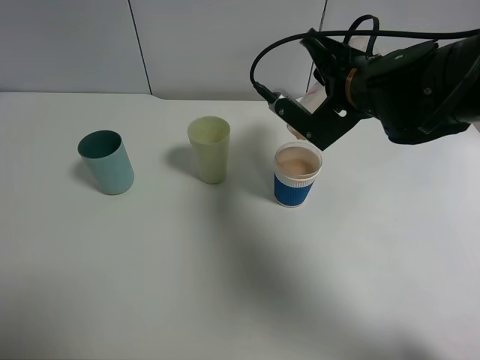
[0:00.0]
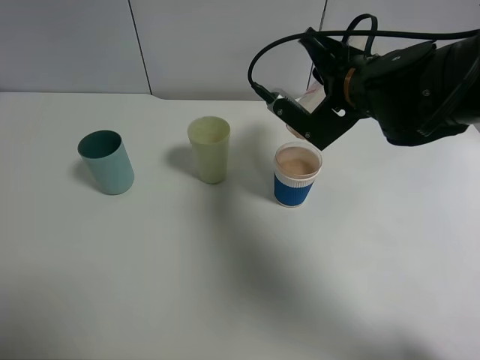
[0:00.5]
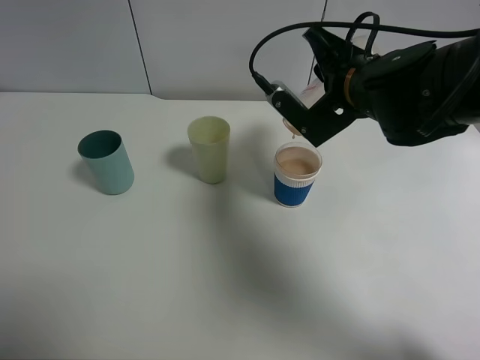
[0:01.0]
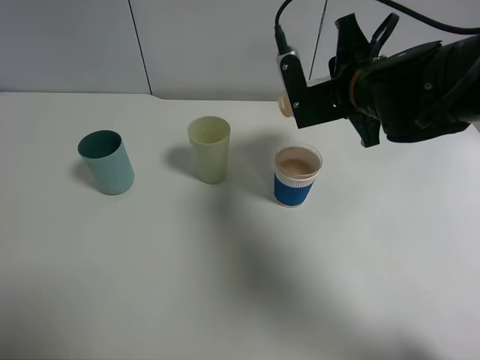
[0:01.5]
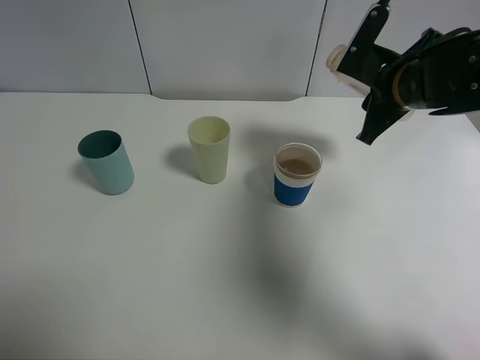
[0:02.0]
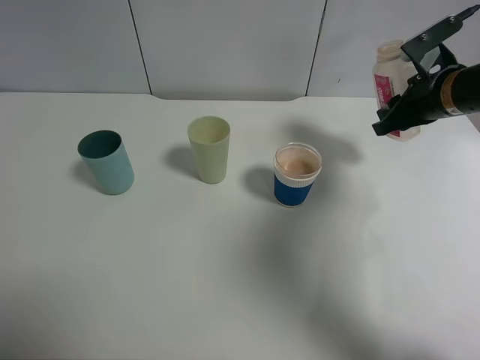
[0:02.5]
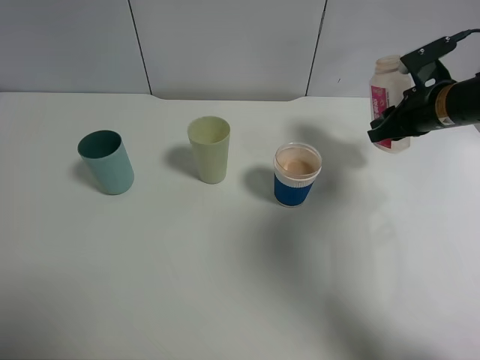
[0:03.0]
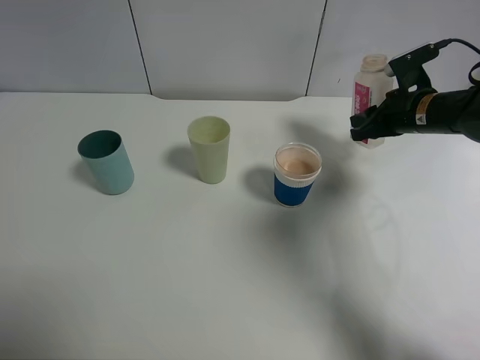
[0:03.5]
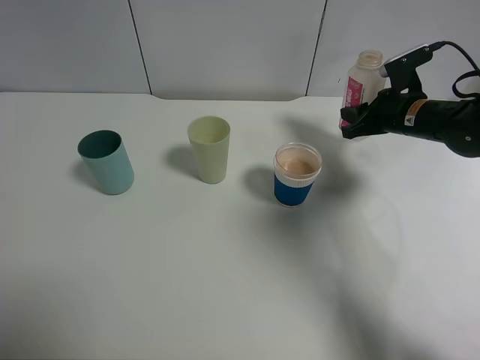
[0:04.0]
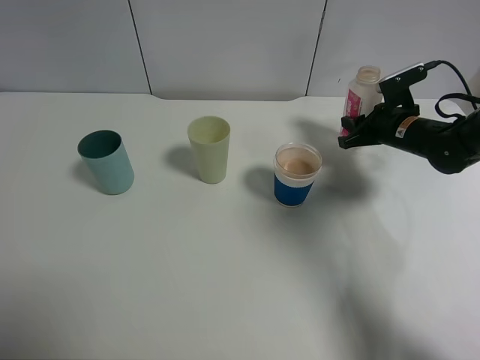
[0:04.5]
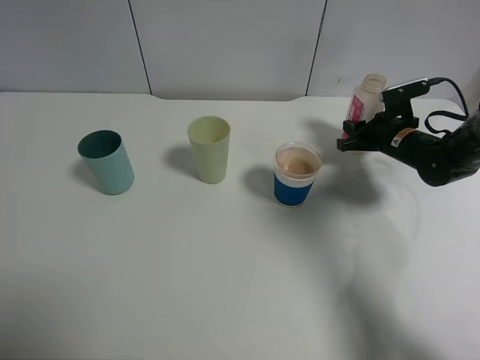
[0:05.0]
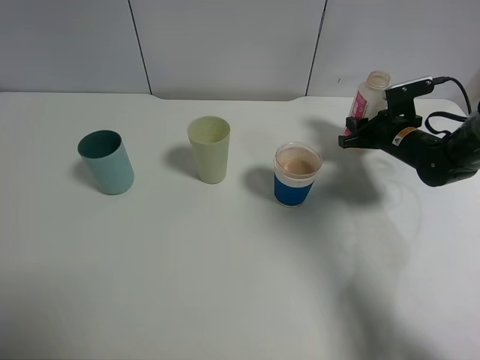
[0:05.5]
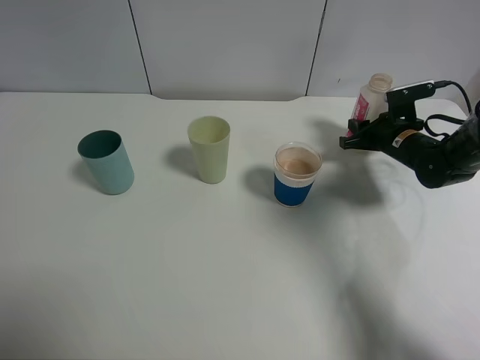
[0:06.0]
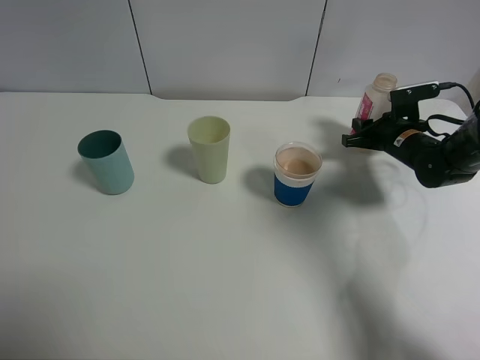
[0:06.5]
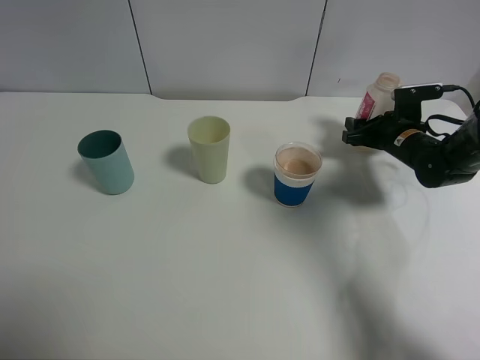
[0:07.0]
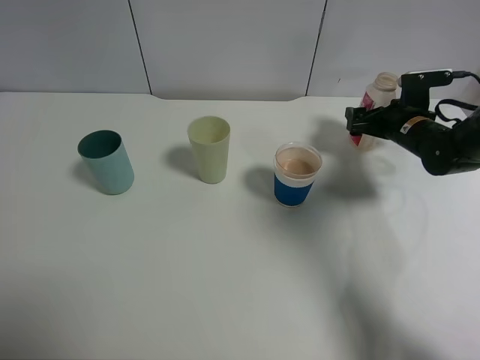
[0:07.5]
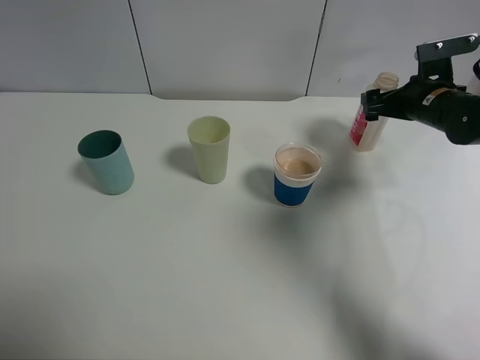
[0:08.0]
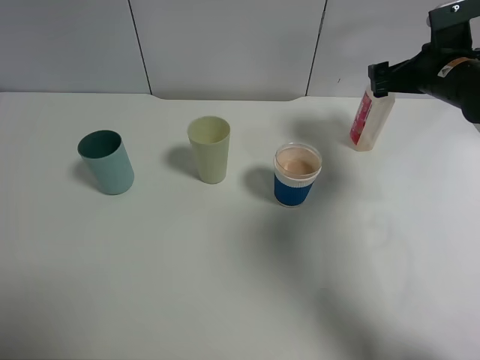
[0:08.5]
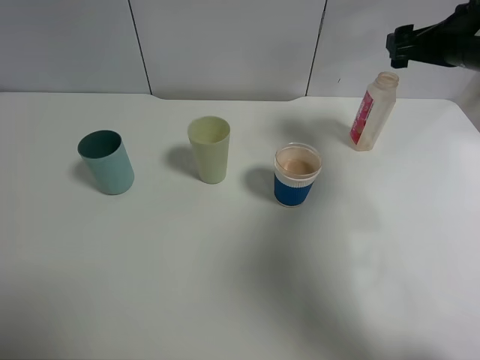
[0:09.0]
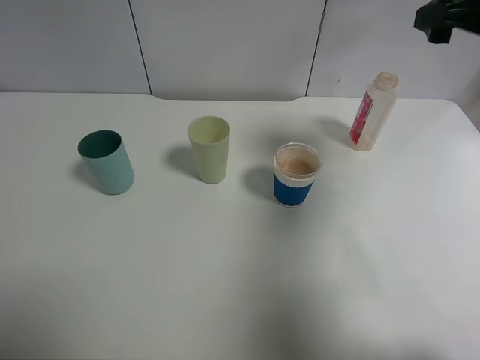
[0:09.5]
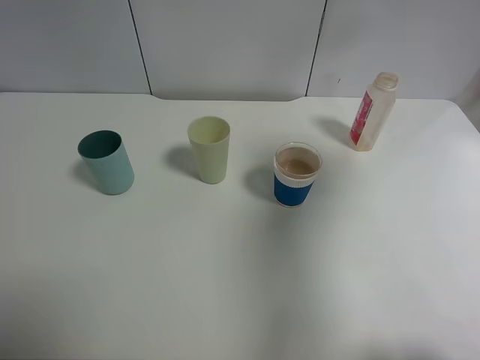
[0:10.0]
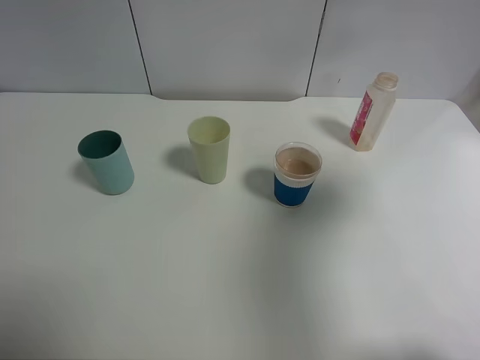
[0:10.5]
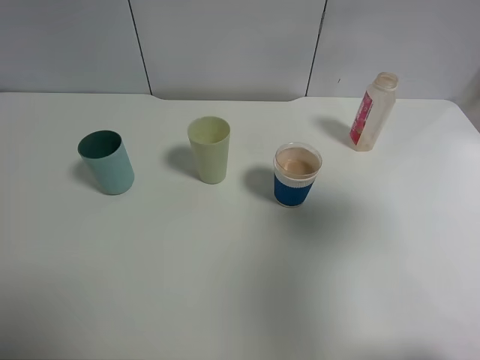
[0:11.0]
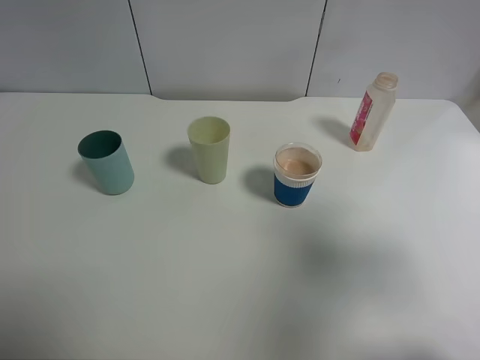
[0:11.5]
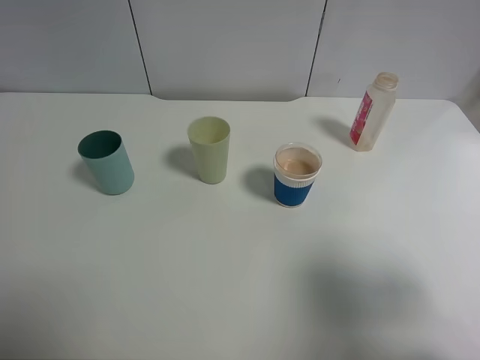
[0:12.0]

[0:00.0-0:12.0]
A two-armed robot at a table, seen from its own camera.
Task of the whole recording: use a clamp to hold the bottle of the drink, pour the beverage into a random cup, then clamp the cup containing the drink and pour the drink into another random cup.
Step, 0:02.0 to 0:07.0: Place the drink bottle on the table with right gripper.
0:00.0 to 0:02.0: The right gripper moves to the right, some 5 cm.
0:02.0 to 0:04.0: The right gripper travels downward, to the right and forward by roughly 10 cm.
0:04.0 to 0:06.0: The right gripper goes approximately 5 cm downward.
0:06.0 to 0:08.0: The right gripper travels upward by about 5 cm, and opens its fingers.
0:08.0 to 0:10.0: The right gripper goes some 30 cm upward and backward.
0:10.0 to 0:12.0: The right gripper shifts about 20 cm backward and downward.

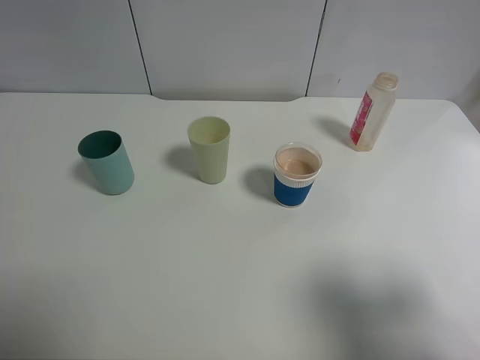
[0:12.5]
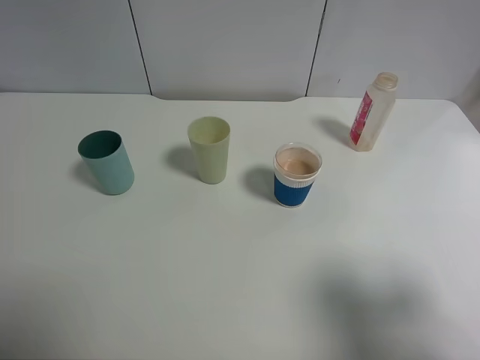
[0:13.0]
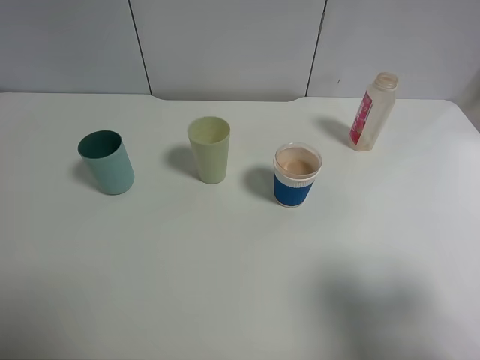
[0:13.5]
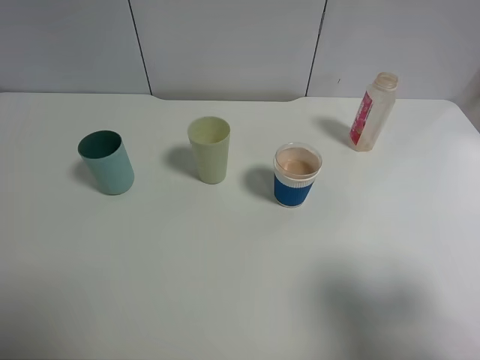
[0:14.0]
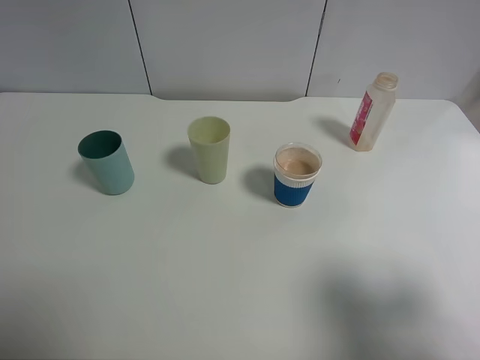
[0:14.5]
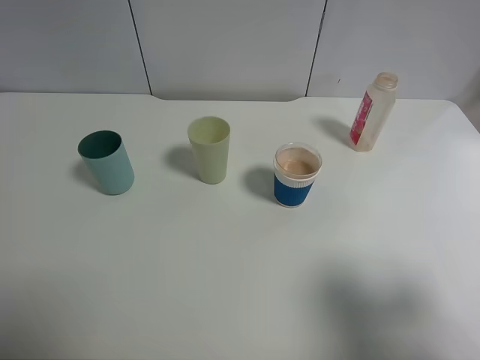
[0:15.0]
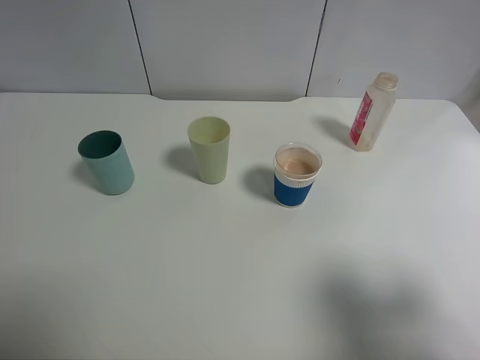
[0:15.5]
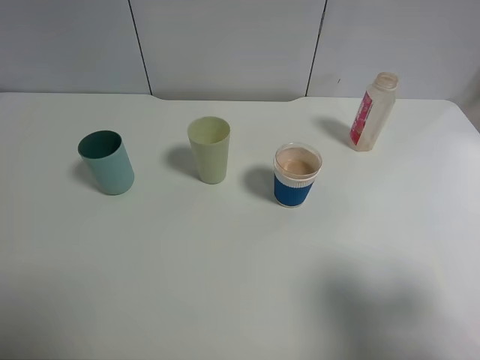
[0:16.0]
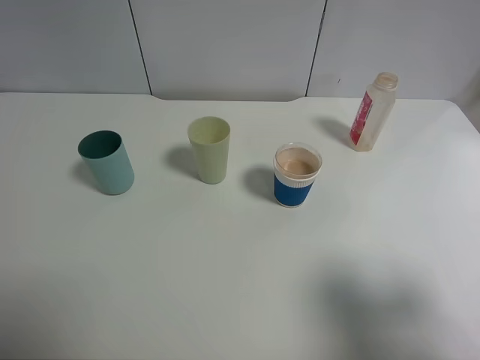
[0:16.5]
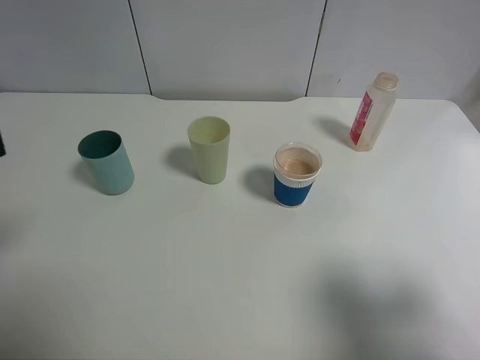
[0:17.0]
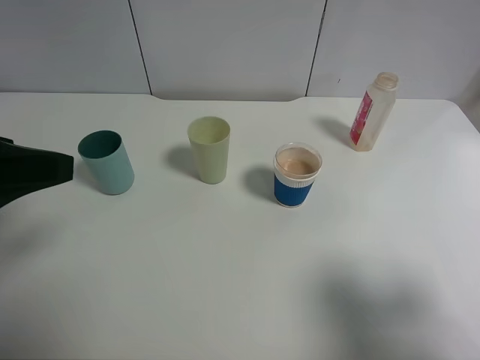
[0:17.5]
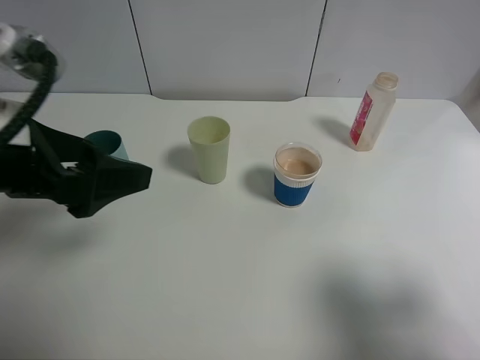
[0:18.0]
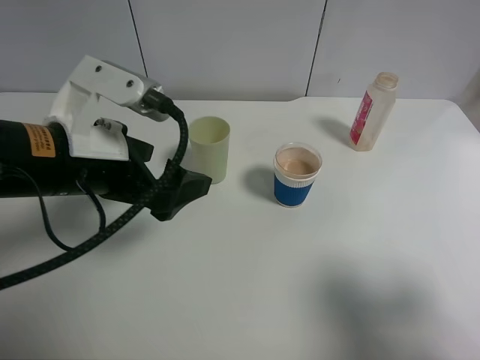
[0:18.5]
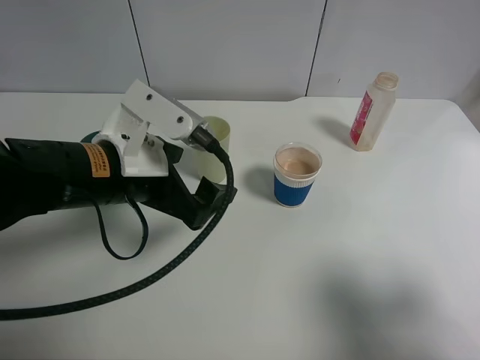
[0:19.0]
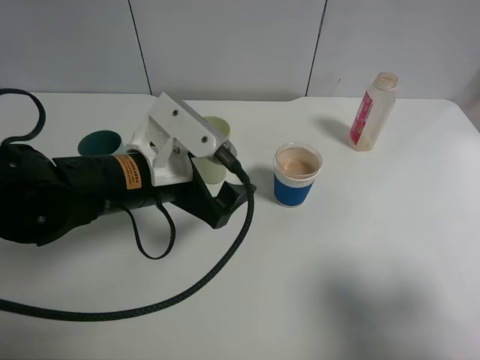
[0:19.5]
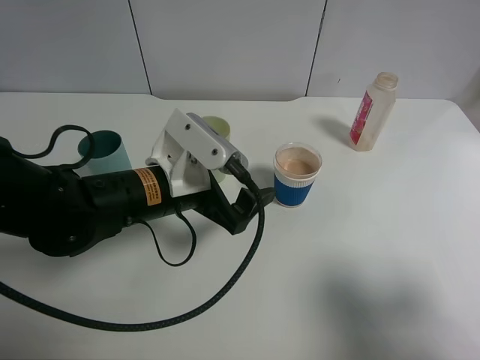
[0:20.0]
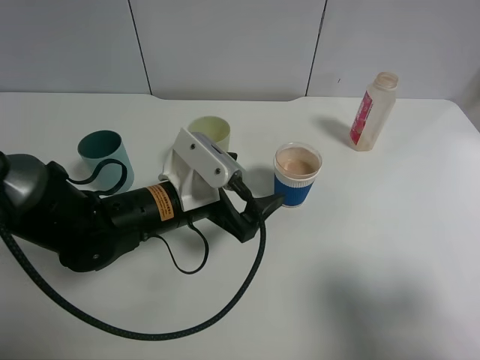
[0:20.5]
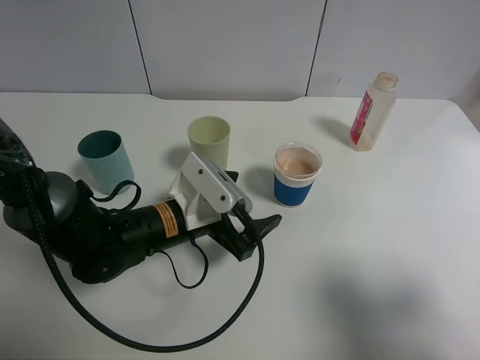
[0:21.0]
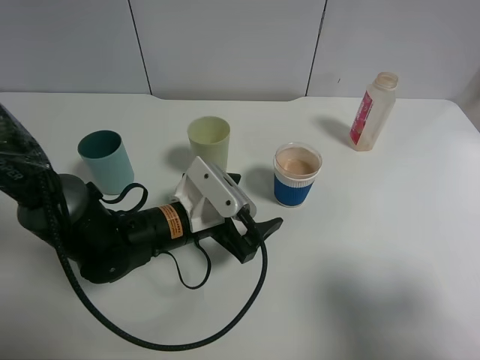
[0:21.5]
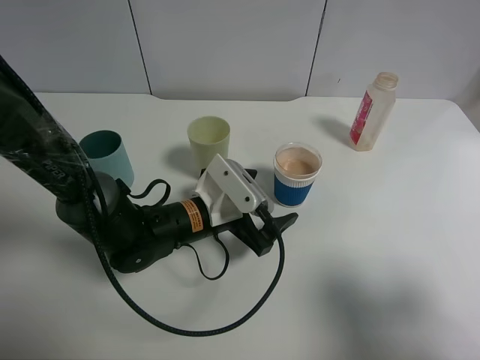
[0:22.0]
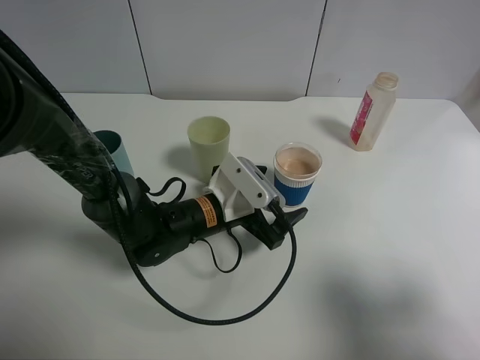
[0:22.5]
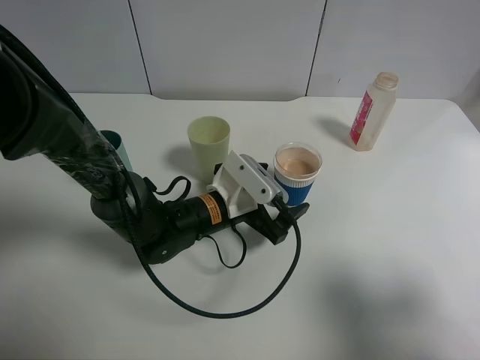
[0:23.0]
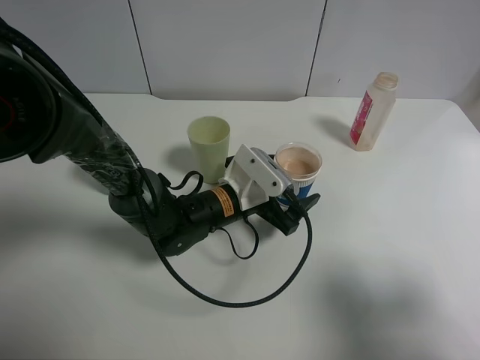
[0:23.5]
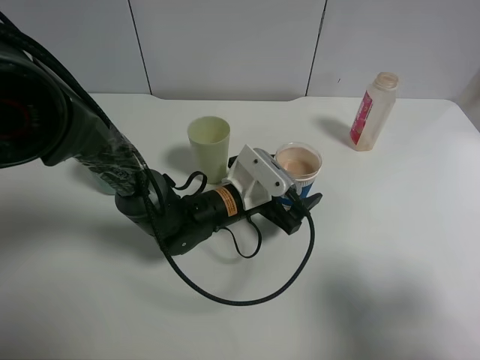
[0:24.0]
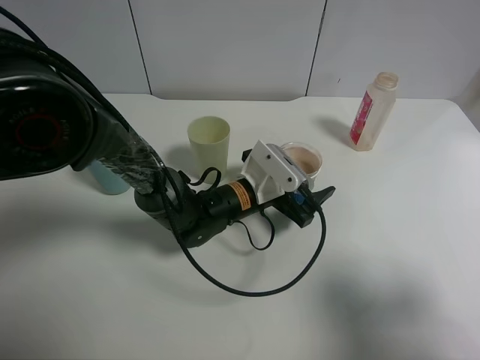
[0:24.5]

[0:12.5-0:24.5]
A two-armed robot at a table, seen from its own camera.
Task of the whole recording: use a clamp to hold the bottle of the drink, pour the beverage into a random cup, then clamp the cup containing the drink and pour the drink into another random cup.
0:12.5 to 0:14.5: Neither gripper changes place.
0:16.5 to 0:18.5: The left gripper moves forward and to the right, roughly 25 cm.
0:18.5 to 0:20.5: The left gripper shifts approximately 15 cm downward and to the right.
0:20.5 to 0:22.5: The left gripper travels downward by some 5 cm.
0:22.5 to 0:24.5: The left gripper shifts by roughly 5 cm.

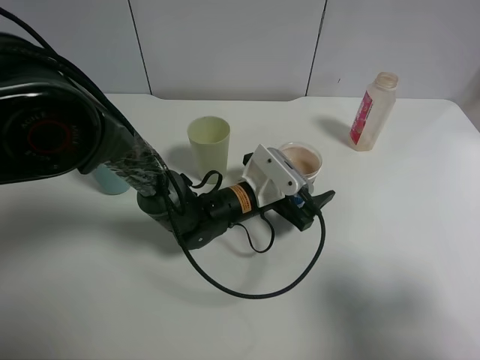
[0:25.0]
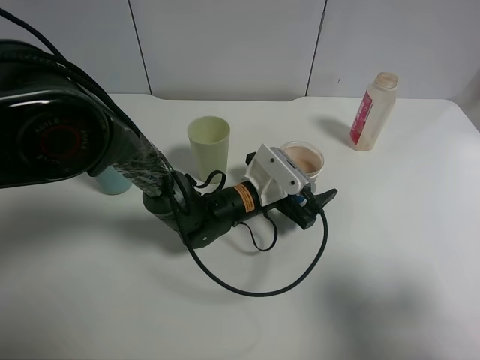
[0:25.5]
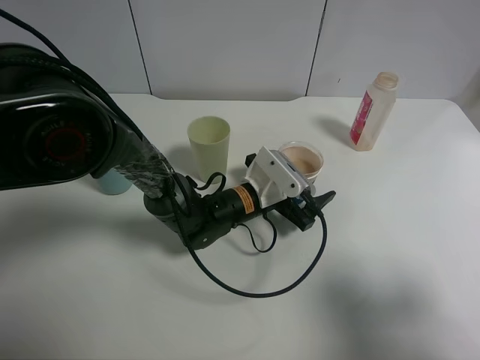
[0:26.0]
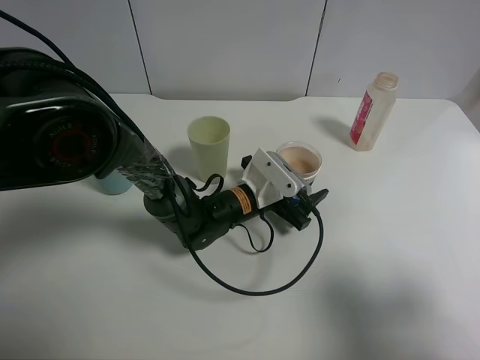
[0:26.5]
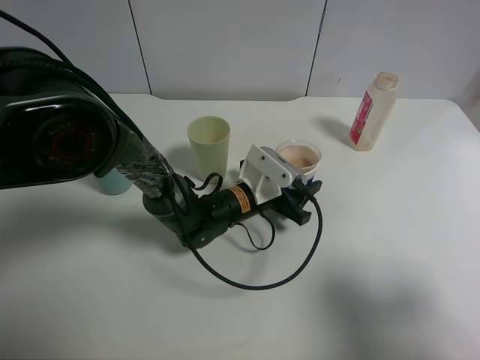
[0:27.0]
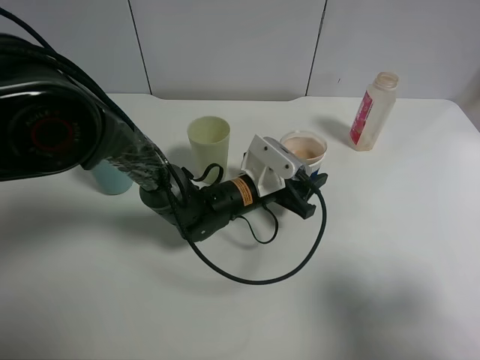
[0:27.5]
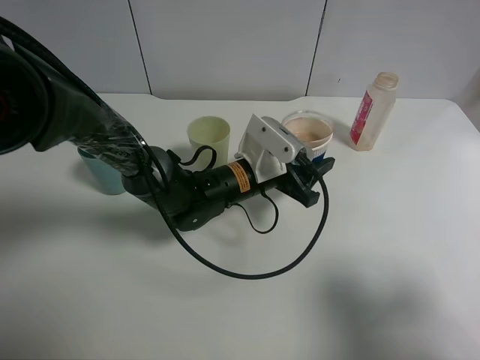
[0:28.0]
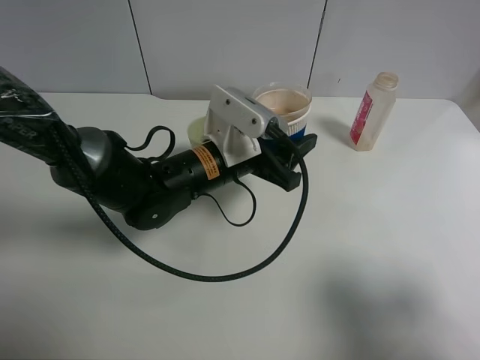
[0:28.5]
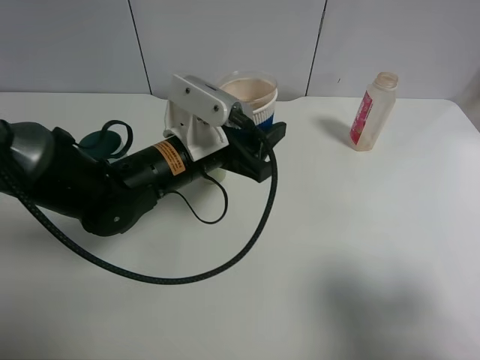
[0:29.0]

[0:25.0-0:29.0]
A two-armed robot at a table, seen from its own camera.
Task of the whole recording: use a clamp to hold the bottle of the drink, pour the beverage into a random cup, then clamp the cup containing the drink and pour the drink into another random cup.
Step, 0:25.0 to 0:27.5: Pick up the paper cup with left gripper.
0:25.0 to 0:27.0: The left gripper closes its fingers.
0:27.0 to 0:29.0: The left gripper goes roughly 15 cm upward and to the left.
